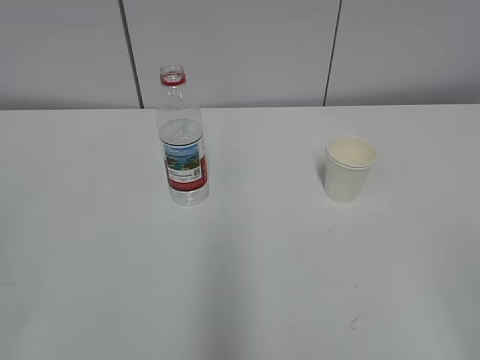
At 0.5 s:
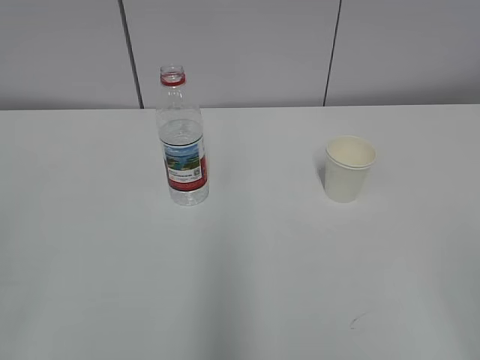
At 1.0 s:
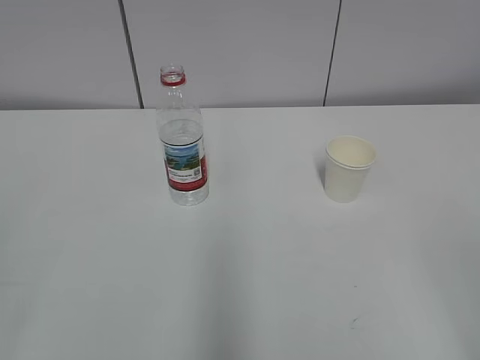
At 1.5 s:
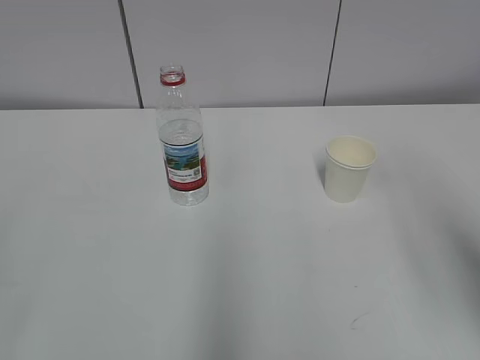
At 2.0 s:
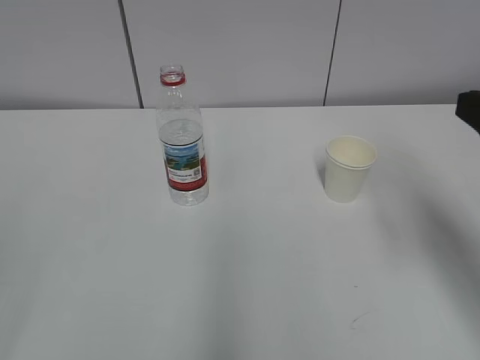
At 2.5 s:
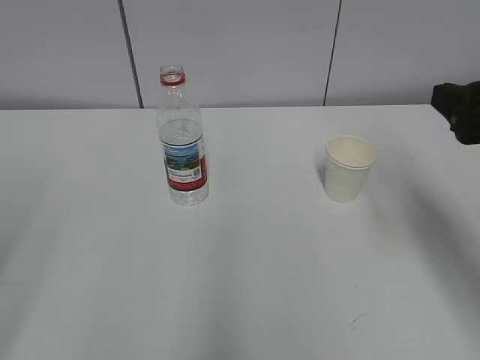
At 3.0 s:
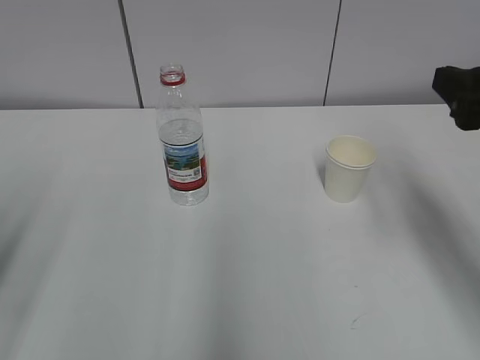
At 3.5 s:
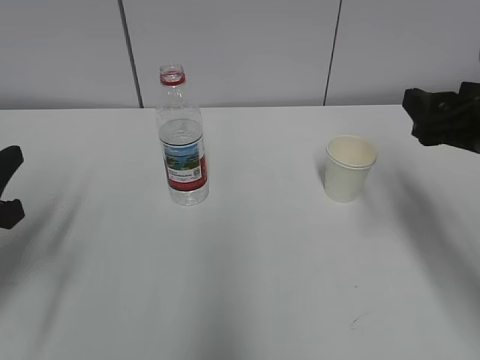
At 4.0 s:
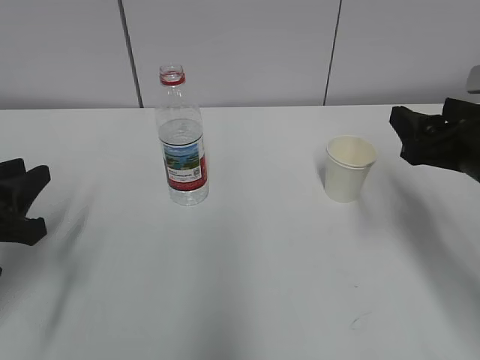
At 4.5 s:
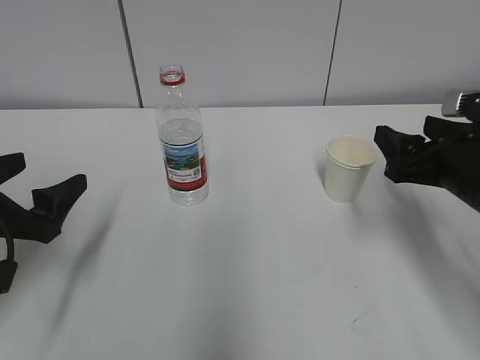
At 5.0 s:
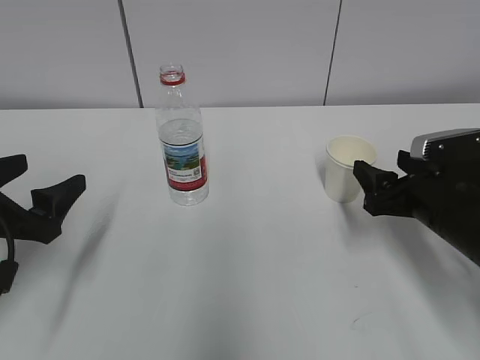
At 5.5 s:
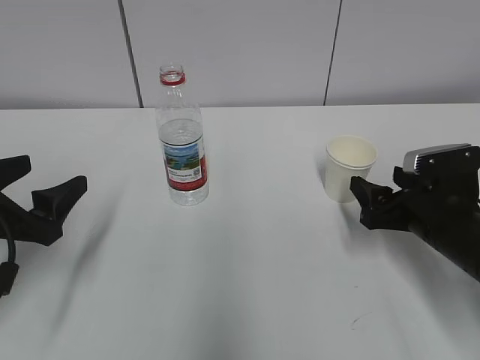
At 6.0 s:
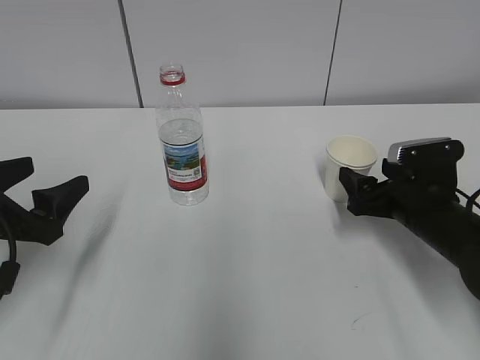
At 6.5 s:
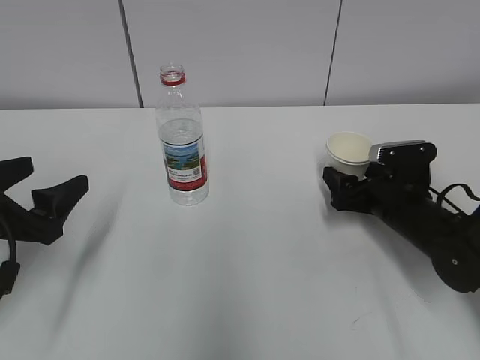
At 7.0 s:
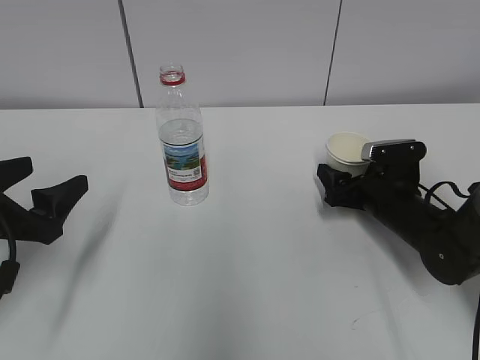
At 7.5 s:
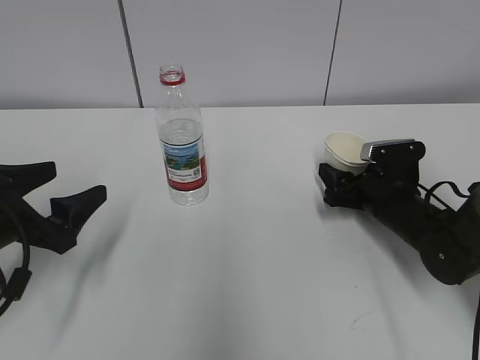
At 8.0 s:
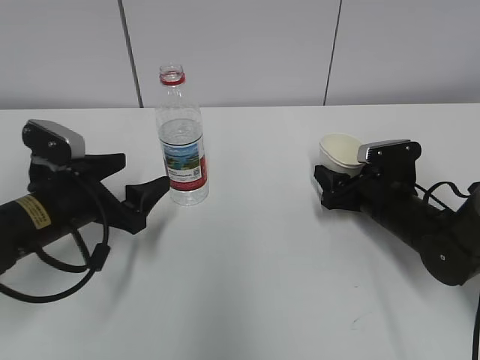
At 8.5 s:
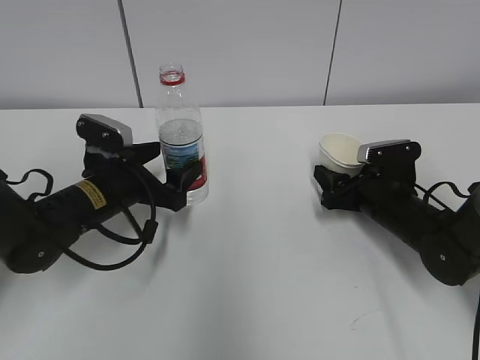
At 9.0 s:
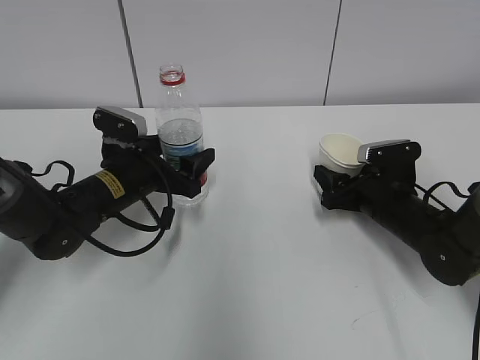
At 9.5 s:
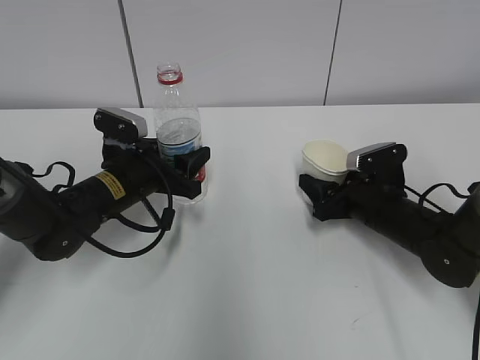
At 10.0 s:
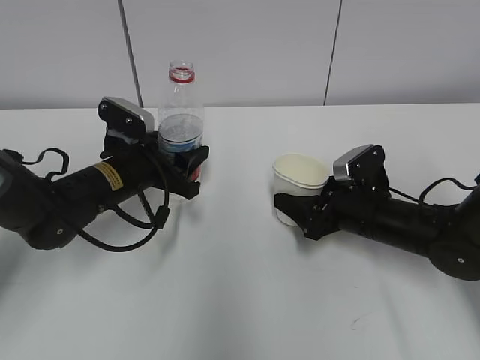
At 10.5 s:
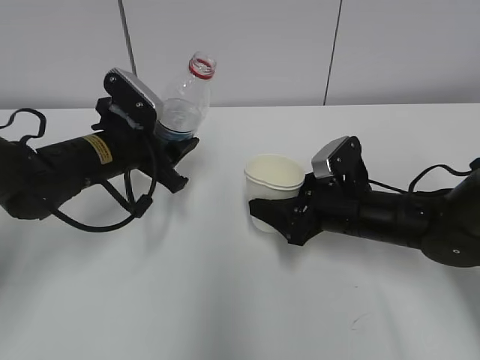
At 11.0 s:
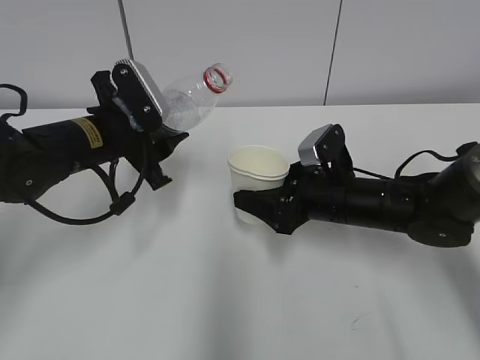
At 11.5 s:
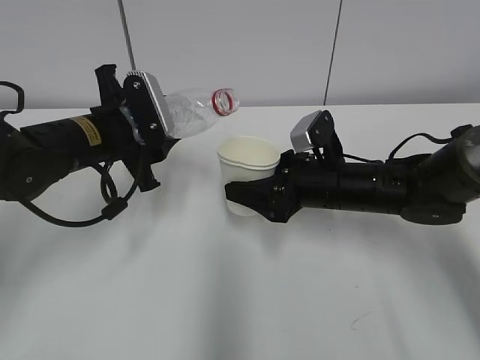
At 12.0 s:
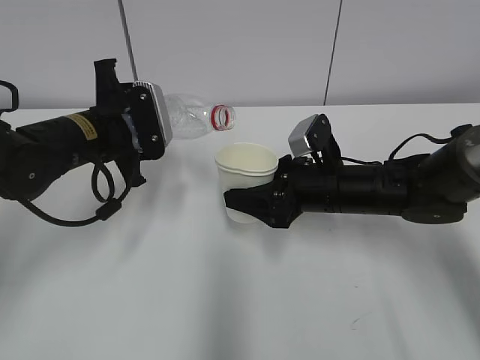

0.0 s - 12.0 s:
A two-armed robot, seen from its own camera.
Step, 0.0 s - 7.0 s: Grasp the paper cup with the right gripper.
Step, 7.5 s - 9.0 s: Grasp the bottle with the left gripper.
2.0 s - 4.0 s: The right gripper is displaced downward and forward by roughly 10 cm, while the left gripper is displaced forward and downward by approximately 25 cm.
4.0 s - 6.0 s: The right gripper shifts approximately 15 cm downward and forward. The left gripper opens.
6.0 s - 8.0 s: The right gripper changes place by approximately 5 cm, and closes its fingers. Meanwhile the left gripper moves to the right and forward, approximately 10 cm.
8.0 s - 10.0 s: The left gripper moves forward and to the right, roughly 10 cm, and closes its fingers.
10.0 s - 12.0 s: The right gripper moves to the left and upward, roughly 10 cm; the left gripper is displaced upward by roughly 5 cm.

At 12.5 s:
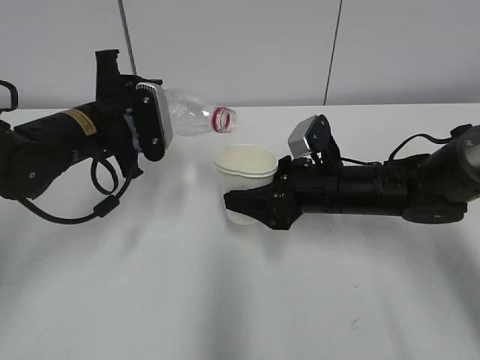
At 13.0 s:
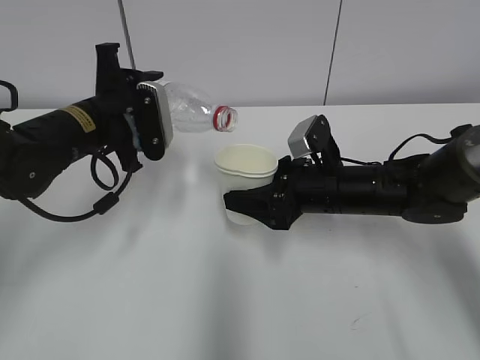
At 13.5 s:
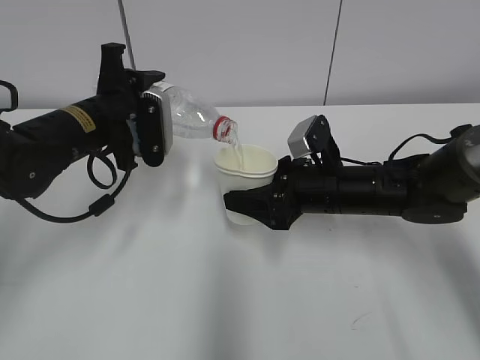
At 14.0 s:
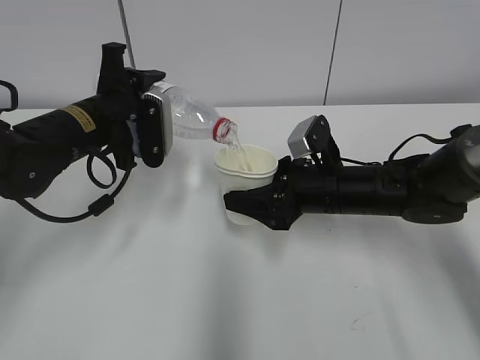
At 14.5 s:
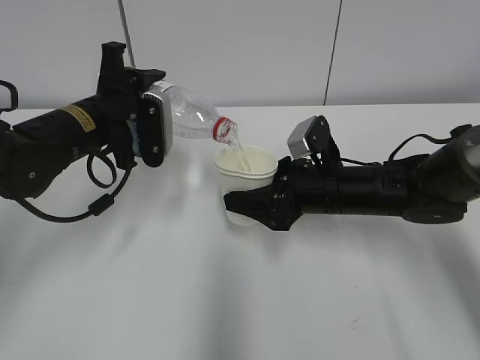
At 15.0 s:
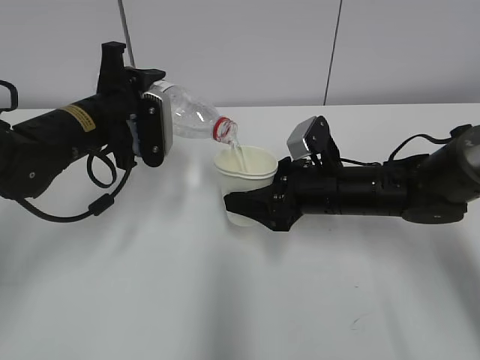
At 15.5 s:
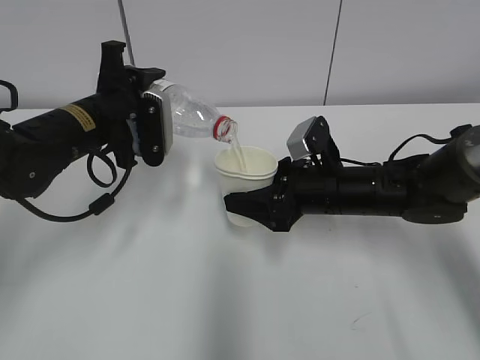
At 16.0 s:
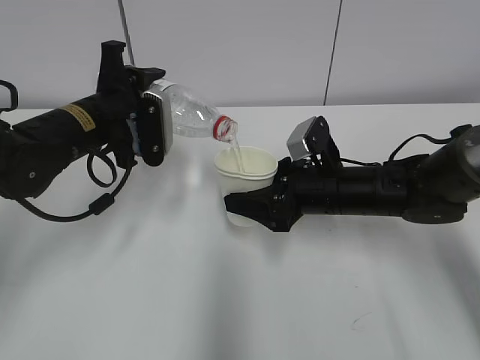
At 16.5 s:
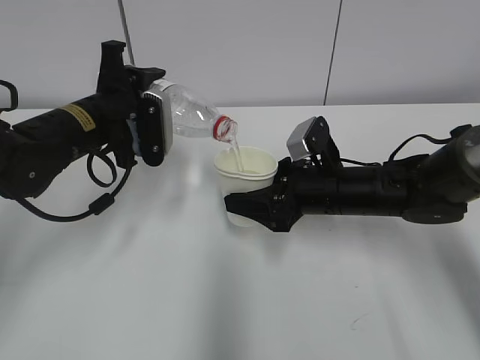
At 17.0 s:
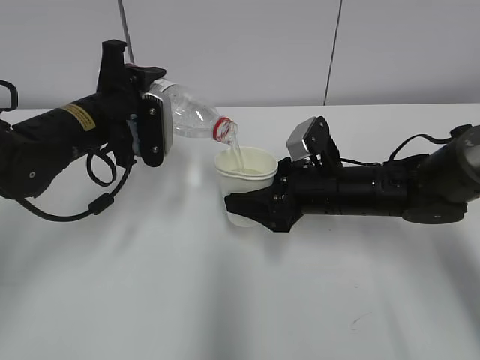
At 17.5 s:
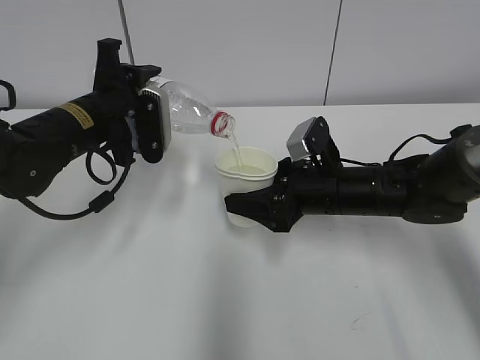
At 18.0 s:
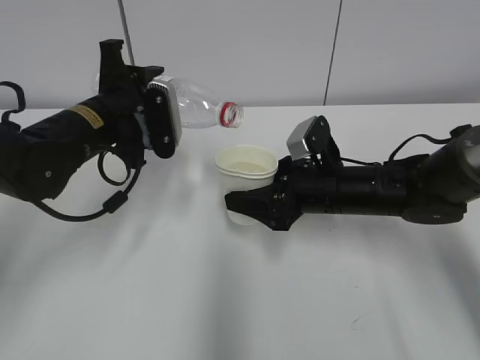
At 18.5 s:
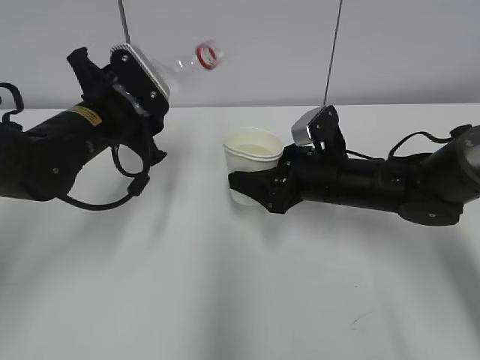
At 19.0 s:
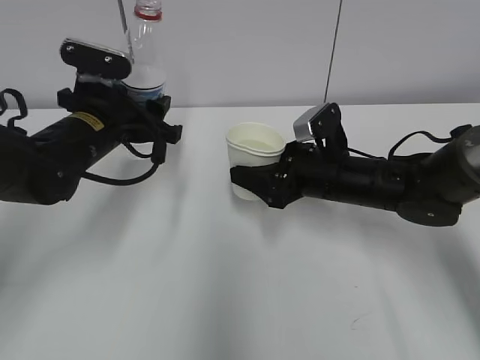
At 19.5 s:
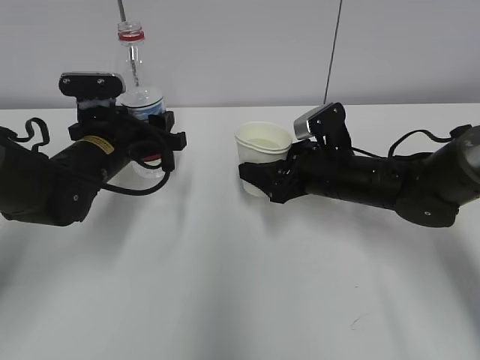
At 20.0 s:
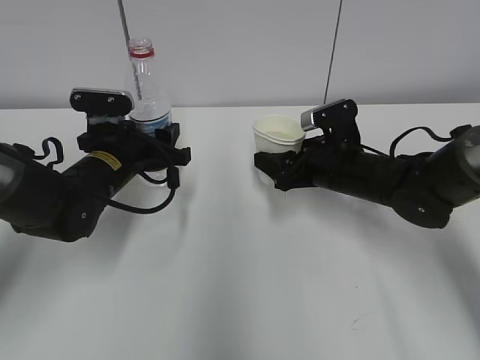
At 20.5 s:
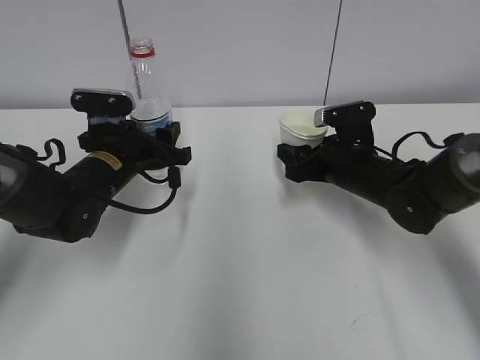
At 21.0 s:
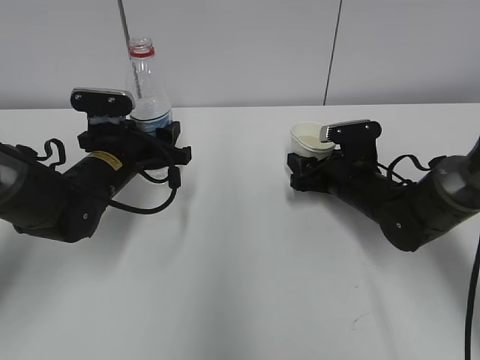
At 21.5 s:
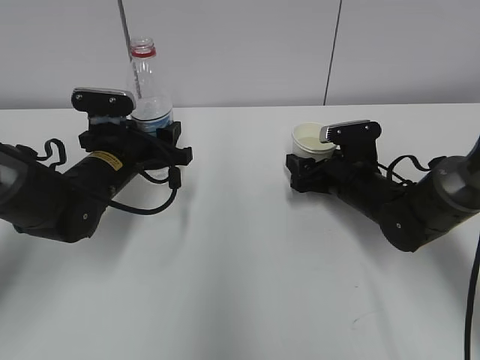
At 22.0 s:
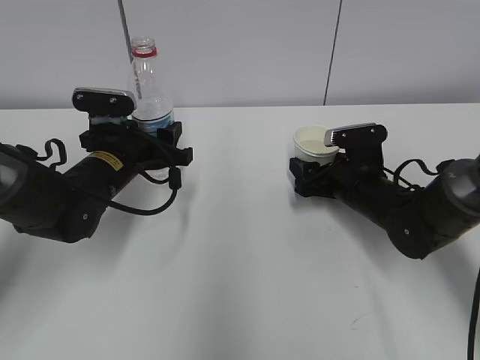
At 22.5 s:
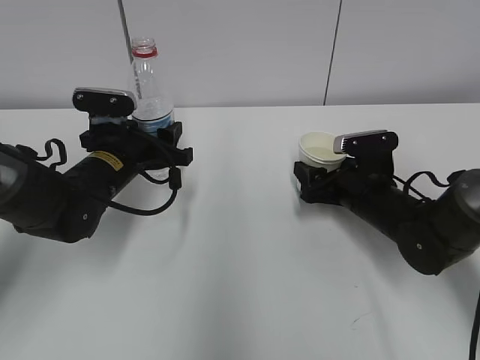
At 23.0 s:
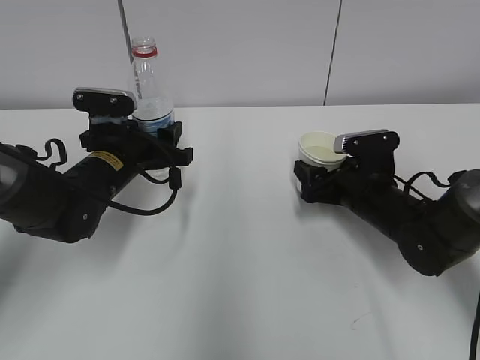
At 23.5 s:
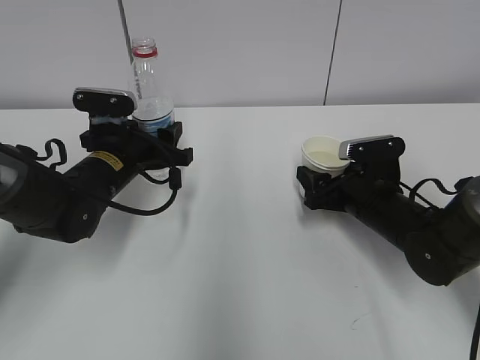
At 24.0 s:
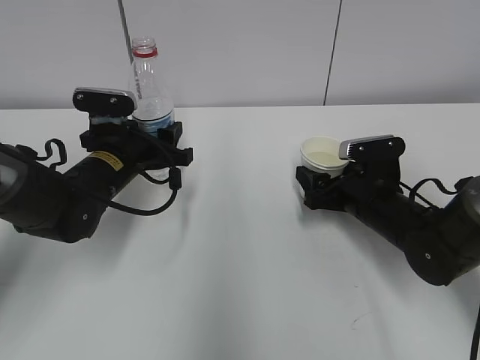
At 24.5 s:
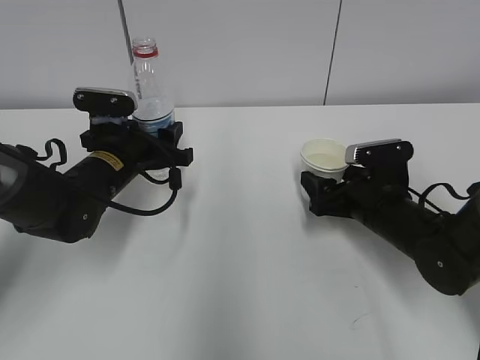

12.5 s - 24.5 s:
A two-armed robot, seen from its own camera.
Step, 12.5 s - 18.0 s: Pour water from bottle to cup with the left gripper.
12.5 s - 14.5 s: The grippers stay close to where they were, moving slightly.
14.5 s - 16.5 s: The two grippers keep their place.
18.5 s - 20.5 s: The right gripper shifts by some 5 cm, while the left gripper shifts approximately 5 cm downward.
20.5 s - 22.5 s: The right gripper opens its fingers.
22.5 s - 24.5 s: There are only small adjustments of the grippers.

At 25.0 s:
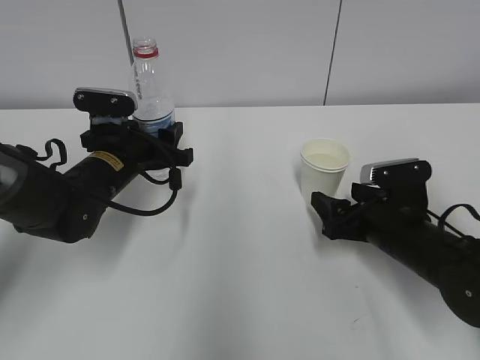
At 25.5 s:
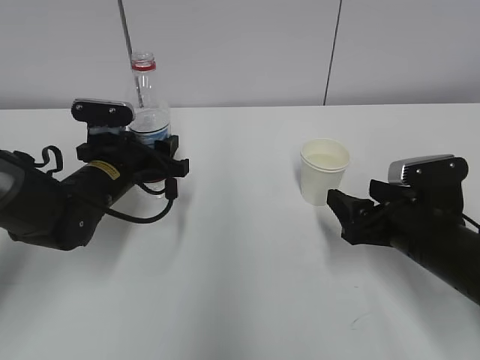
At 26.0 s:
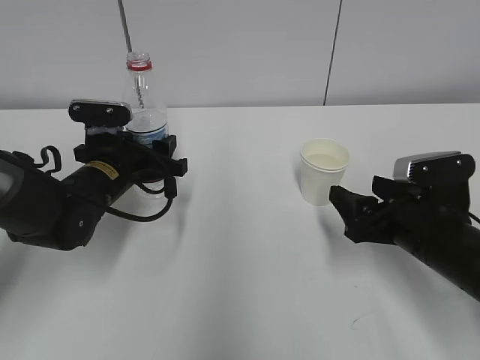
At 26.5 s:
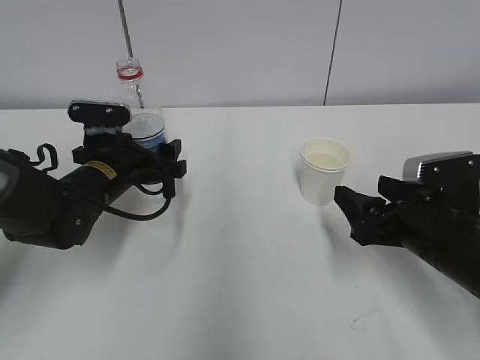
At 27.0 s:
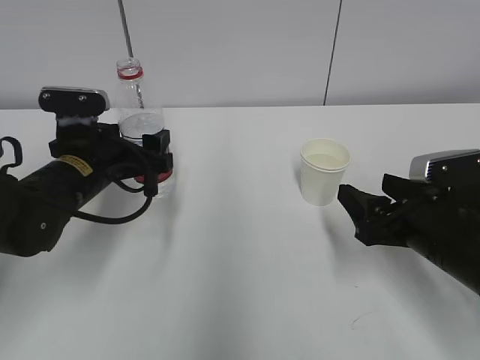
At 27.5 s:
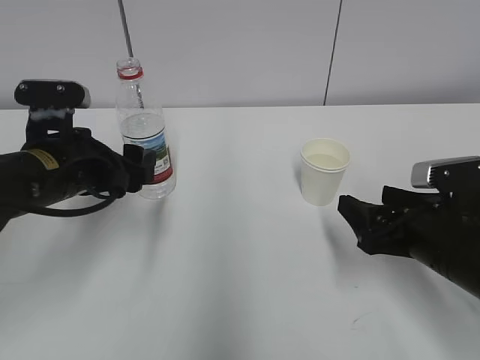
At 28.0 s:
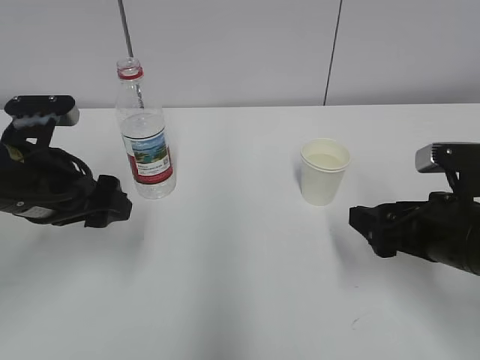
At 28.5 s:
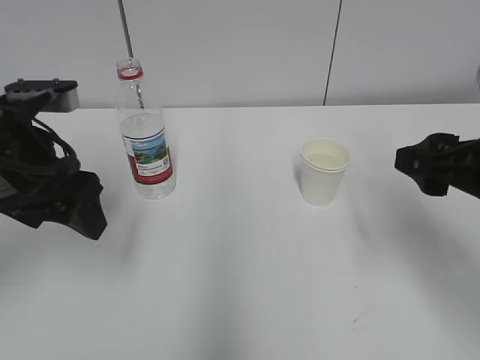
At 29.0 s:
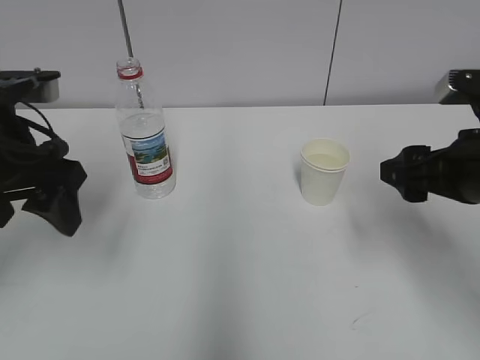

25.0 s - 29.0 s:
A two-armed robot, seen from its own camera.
Step, 25.0 s - 27.0 s: Place the bottle with the left gripper.
25.0 s - 27.0 s: The left gripper opens up; the right gripper shifts approximately 10 cm backward and upward.
27.0 s - 29.0 s: The left gripper is displaced upward and backward by approximately 15 cm. Meanwhile the right gripper moves upward, roughly 10 cm.
